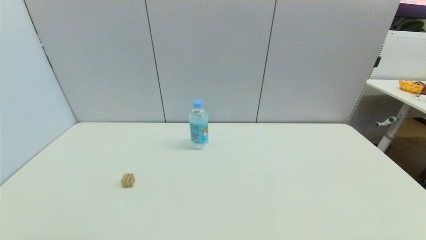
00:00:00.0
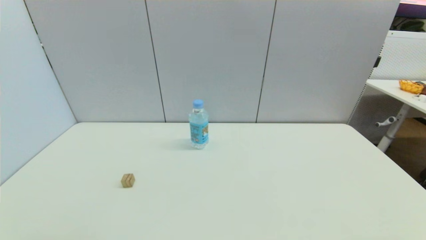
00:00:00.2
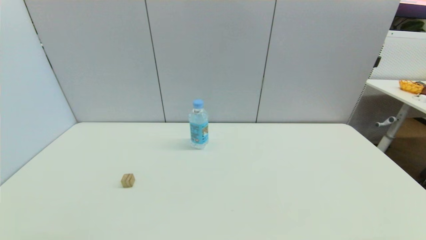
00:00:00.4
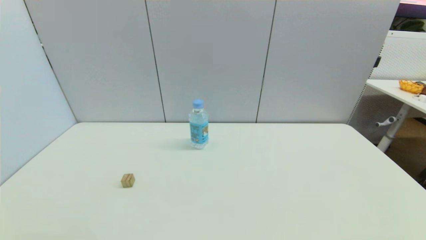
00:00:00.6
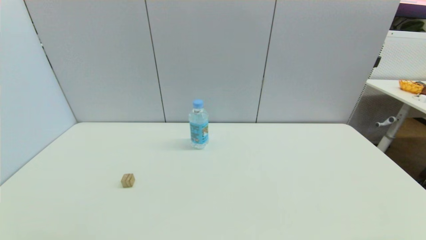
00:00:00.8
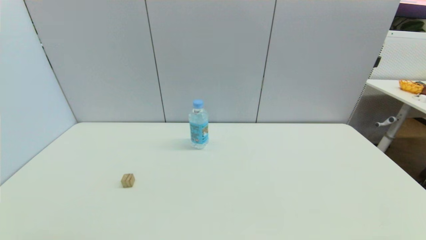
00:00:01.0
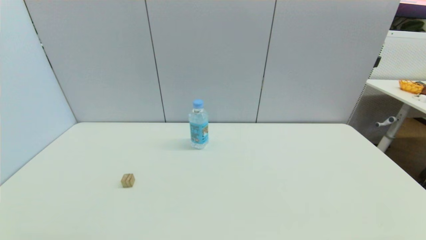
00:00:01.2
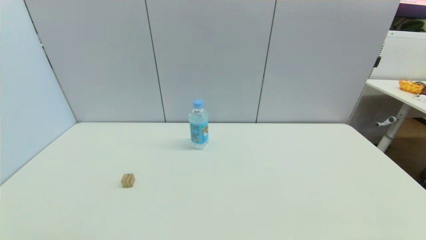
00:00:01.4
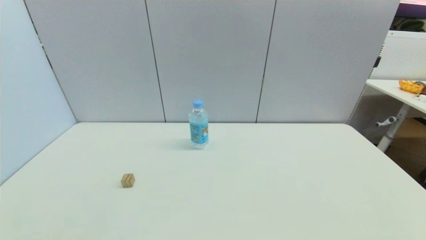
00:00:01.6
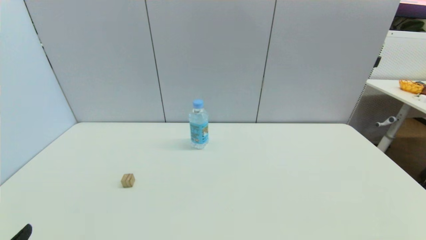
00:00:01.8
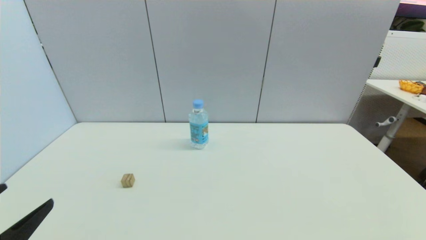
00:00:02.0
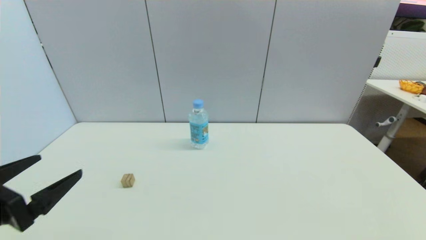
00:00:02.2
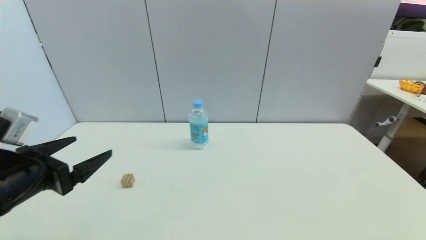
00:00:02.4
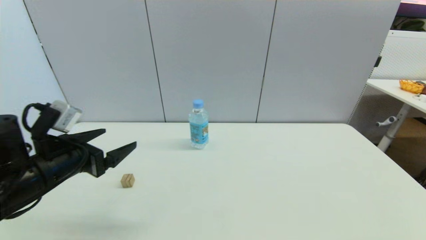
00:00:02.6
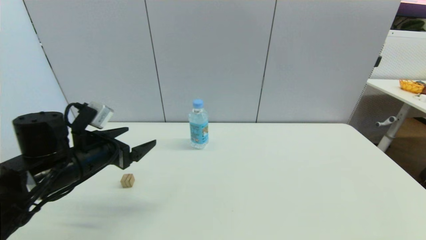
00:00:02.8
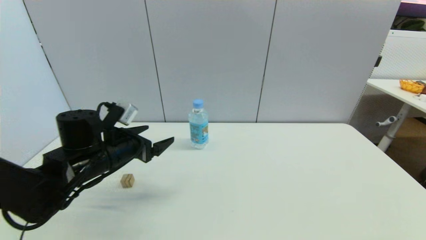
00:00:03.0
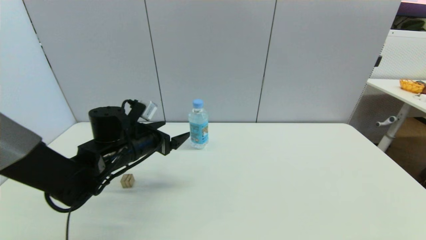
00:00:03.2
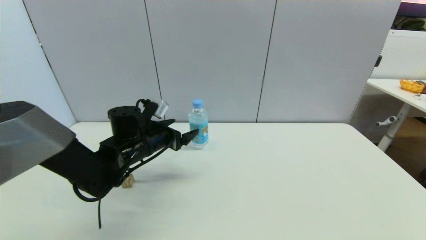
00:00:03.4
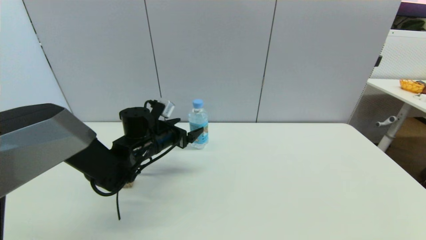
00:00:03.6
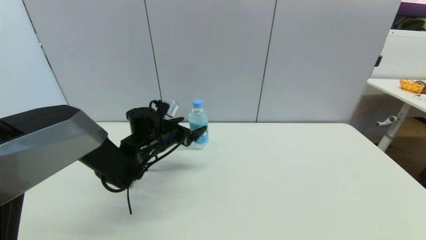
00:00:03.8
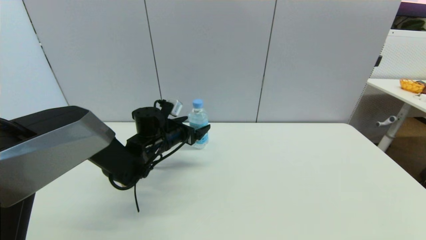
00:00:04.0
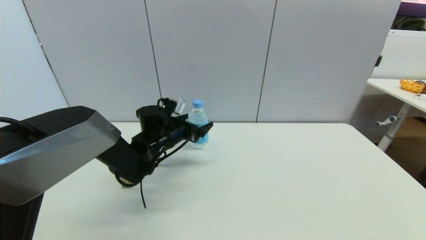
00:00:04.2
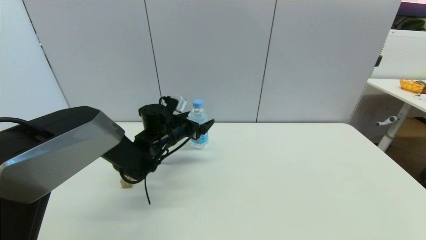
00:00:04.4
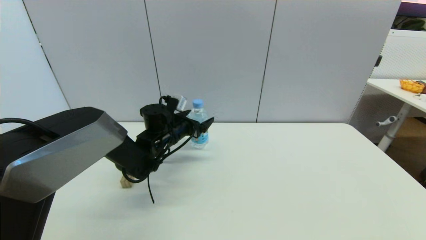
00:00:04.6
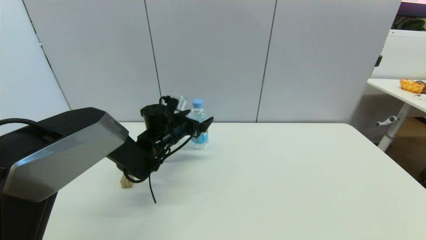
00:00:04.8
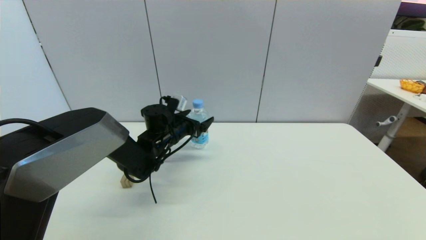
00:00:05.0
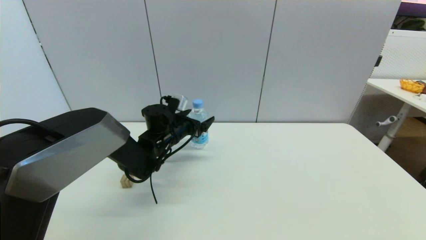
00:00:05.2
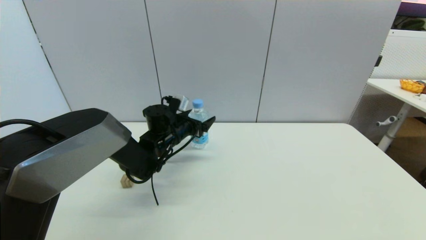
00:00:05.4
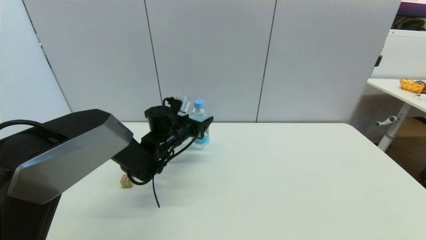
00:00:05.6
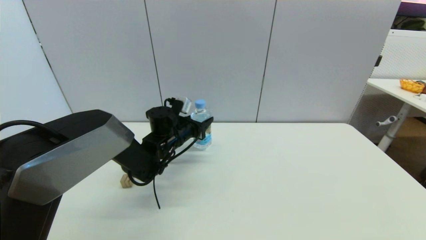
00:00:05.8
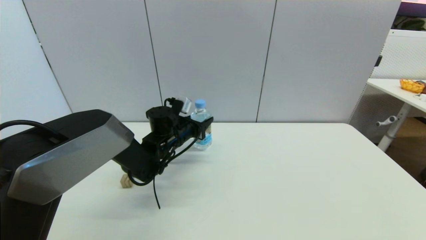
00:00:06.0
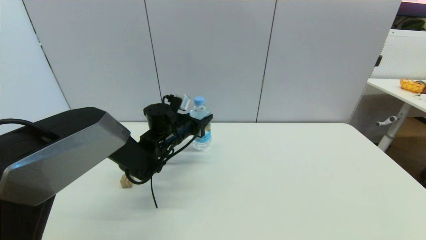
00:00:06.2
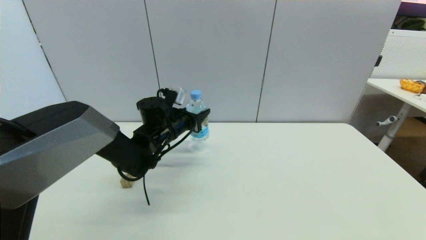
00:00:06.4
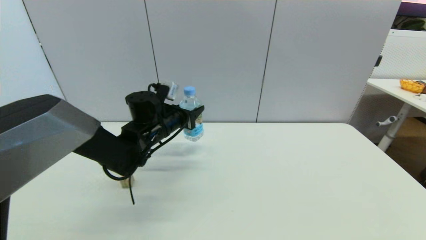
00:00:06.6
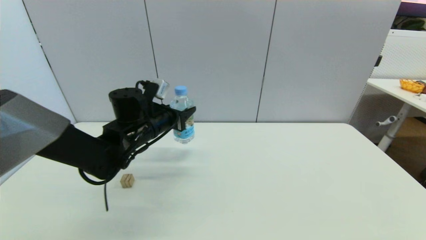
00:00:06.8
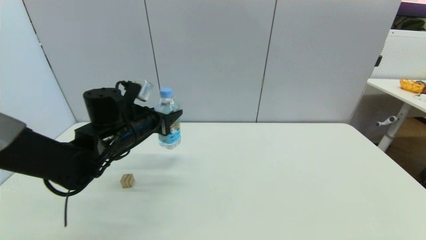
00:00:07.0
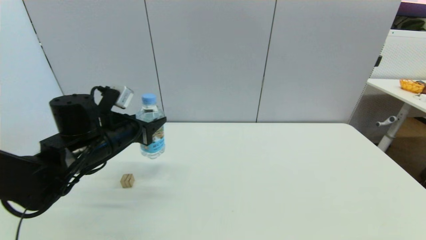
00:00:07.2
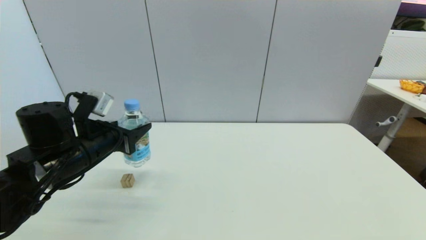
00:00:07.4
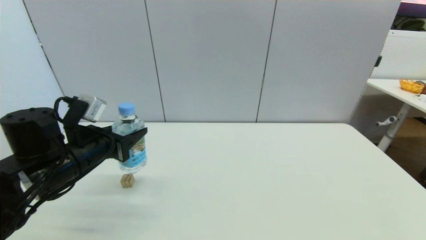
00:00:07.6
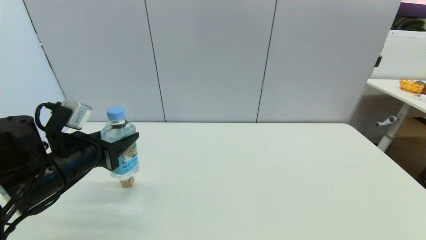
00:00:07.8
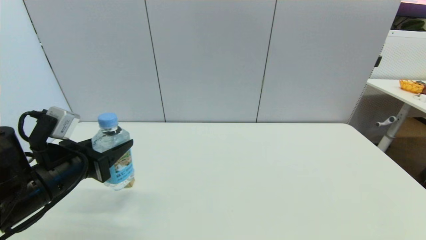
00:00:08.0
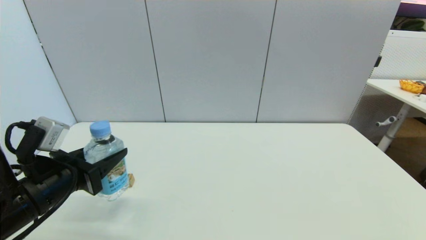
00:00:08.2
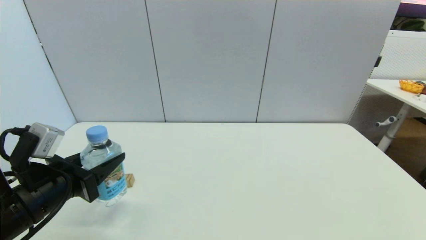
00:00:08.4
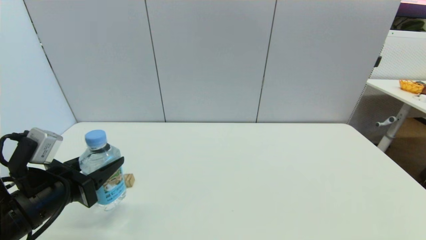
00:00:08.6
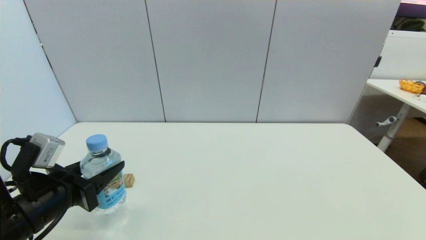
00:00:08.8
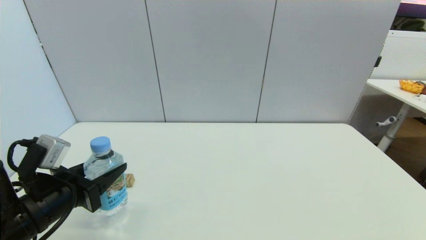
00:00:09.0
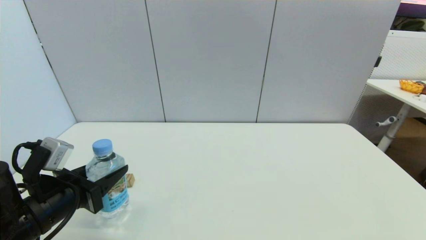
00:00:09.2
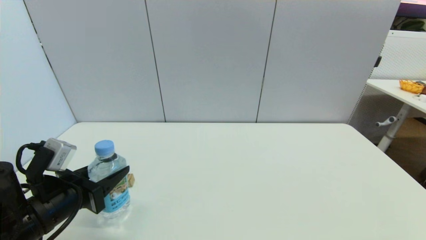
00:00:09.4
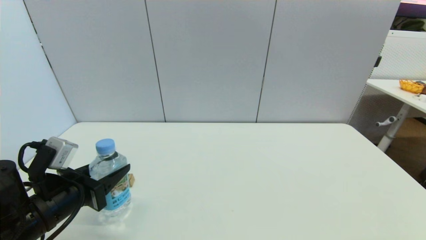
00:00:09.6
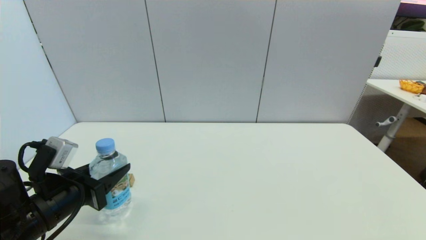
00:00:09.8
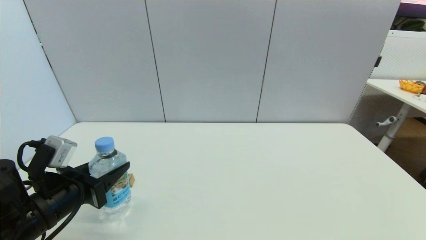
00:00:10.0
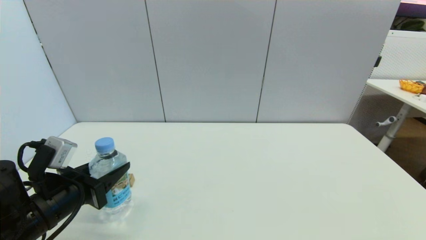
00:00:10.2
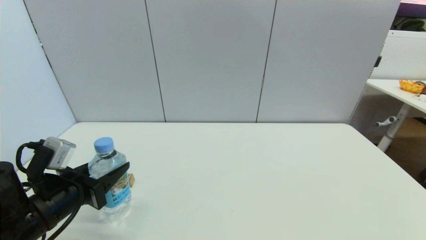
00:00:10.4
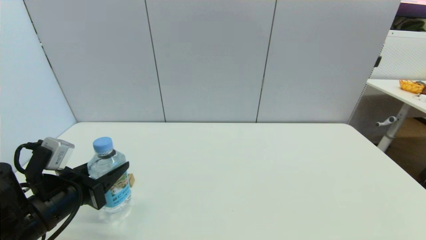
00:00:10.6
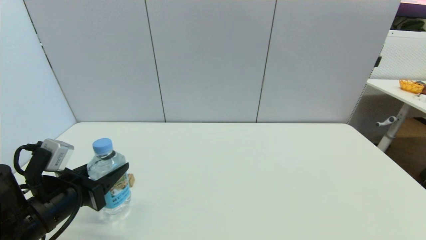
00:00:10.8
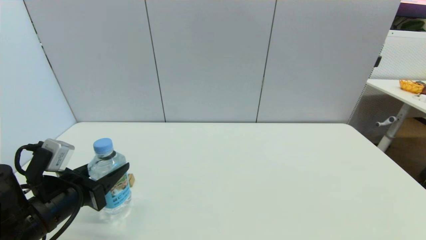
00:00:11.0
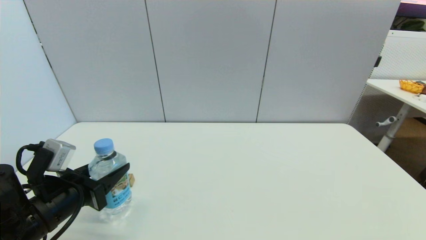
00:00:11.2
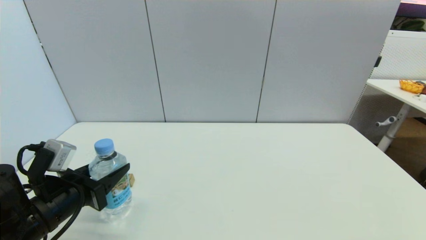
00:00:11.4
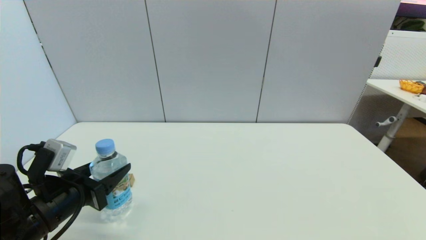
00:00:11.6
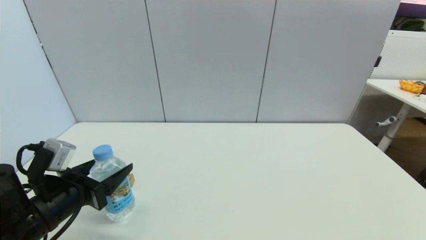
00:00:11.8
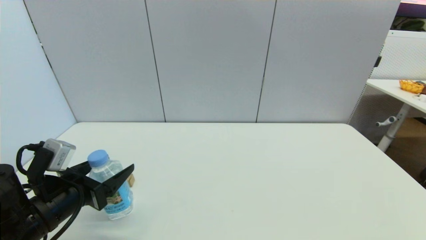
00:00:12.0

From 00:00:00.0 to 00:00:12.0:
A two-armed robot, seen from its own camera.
Step, from 00:00:01.8 to 00:00:05.8: Grasp the soda water with left gripper.
Step, from 00:00:06.0 to 00:00:11.8: Place the soda water on the table with left gripper.
From 00:00:01.6 to 00:00:03.0: The left gripper heads forward, covering approximately 30 cm.
From 00:00:03.0 to 00:00:04.4: The left gripper shifts approximately 15 cm forward and to the right.
From 00:00:04.4 to 00:00:06.0: The left gripper closes up.
From 00:00:06.0 to 00:00:07.6: The left gripper heads backward, to the left and upward, covering about 25 cm.
From 00:00:07.6 to 00:00:09.0: The left gripper is displaced backward by some 5 cm.
From 00:00:09.0 to 00:00:10.4: Neither gripper changes place.
From 00:00:10.4 to 00:00:12.0: The left gripper opens its fingers.

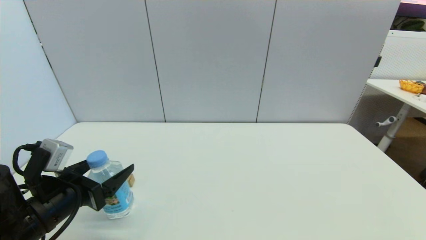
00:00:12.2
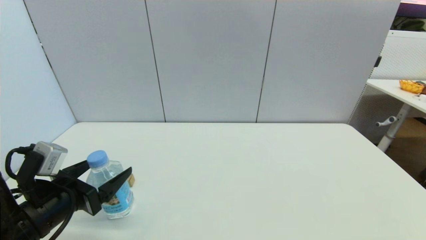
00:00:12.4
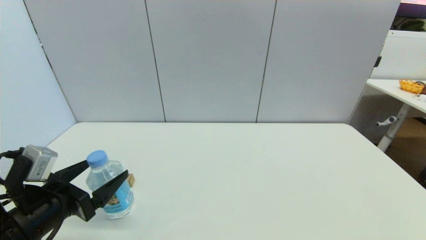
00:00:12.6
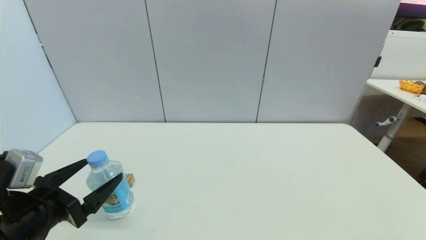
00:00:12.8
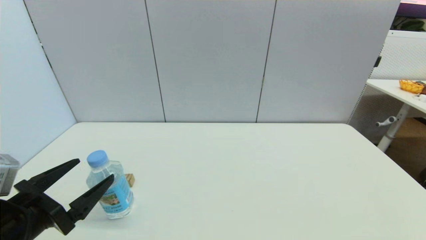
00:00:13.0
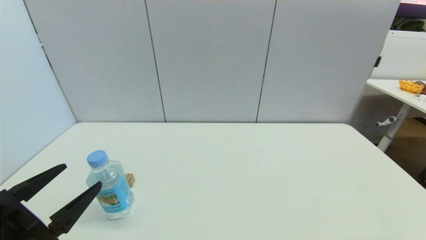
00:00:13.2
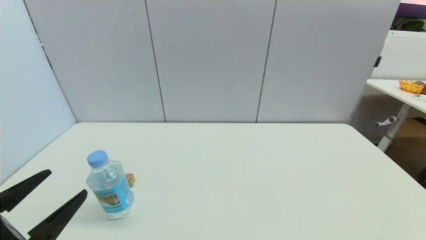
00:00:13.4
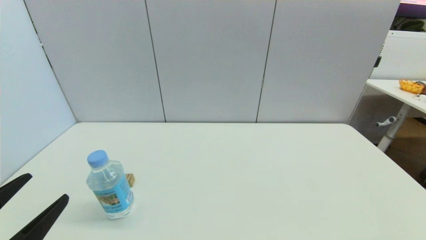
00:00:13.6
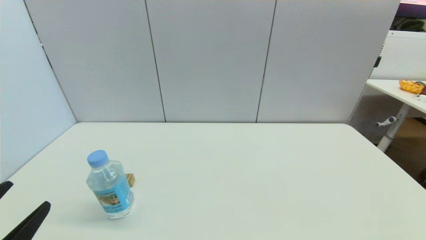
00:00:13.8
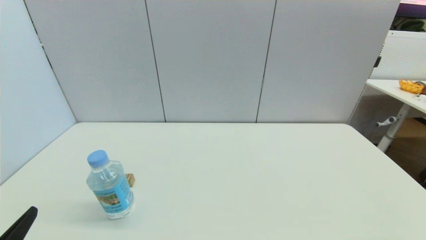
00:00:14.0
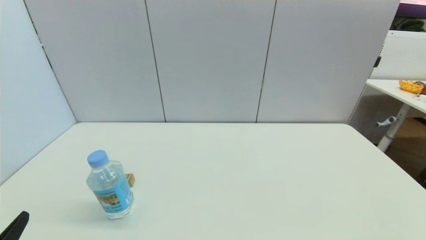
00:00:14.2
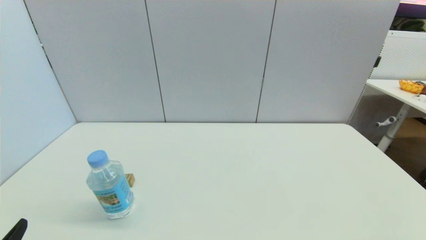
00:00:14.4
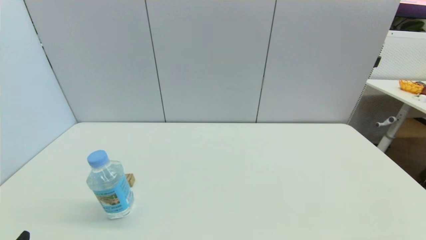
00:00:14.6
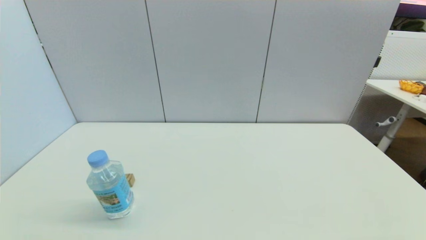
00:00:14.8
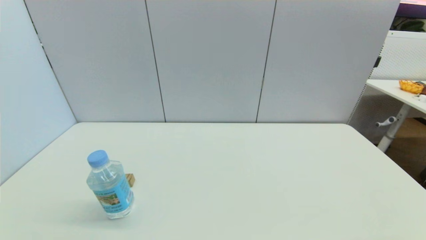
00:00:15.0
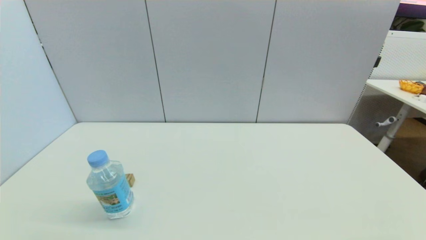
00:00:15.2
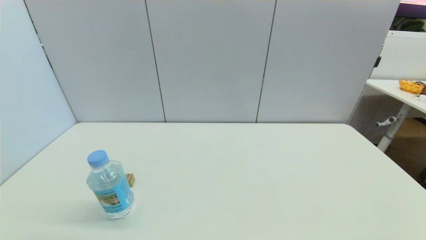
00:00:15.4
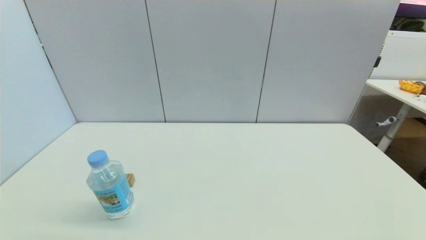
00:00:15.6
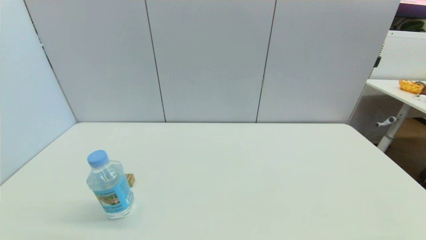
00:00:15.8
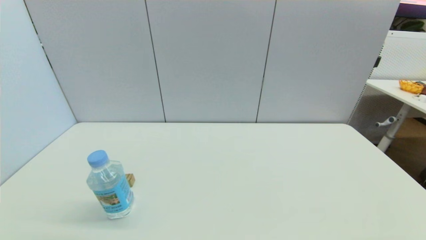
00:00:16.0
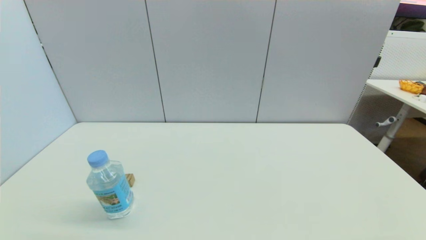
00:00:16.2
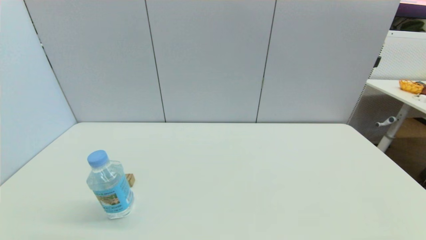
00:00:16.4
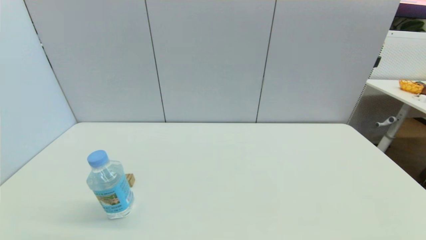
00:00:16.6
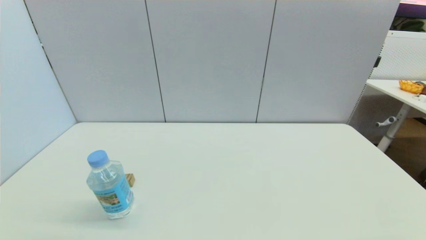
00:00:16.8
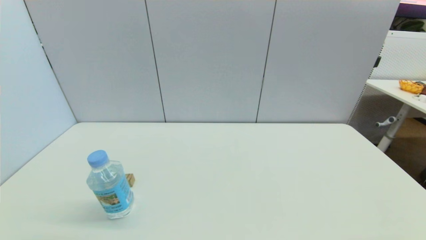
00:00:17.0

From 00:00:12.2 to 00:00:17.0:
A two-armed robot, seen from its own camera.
From 00:00:12.2 to 00:00:13.8: The left gripper travels backward by approximately 15 cm.
From 00:00:13.8 to 00:00:15.4: The left gripper is displaced downward by roughly 5 cm.
From 00:00:15.4 to 00:00:17.0: Both grippers stay about where they are.
